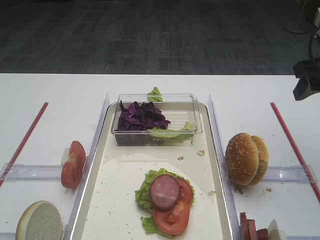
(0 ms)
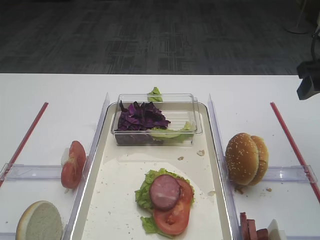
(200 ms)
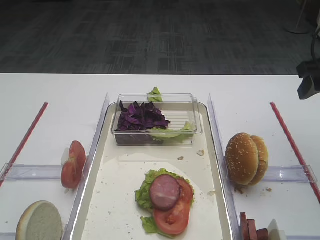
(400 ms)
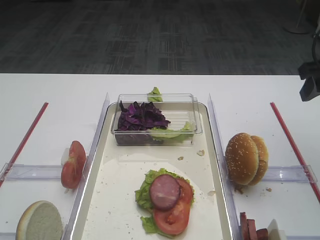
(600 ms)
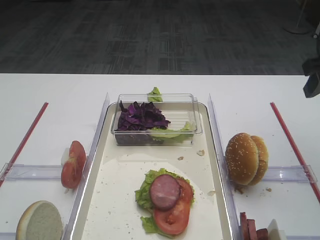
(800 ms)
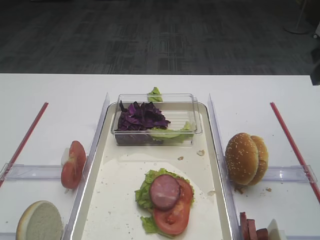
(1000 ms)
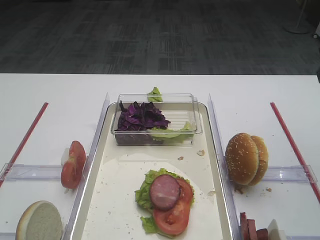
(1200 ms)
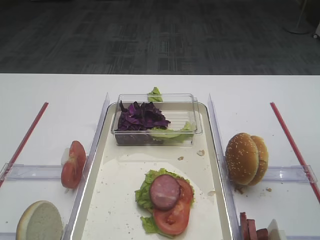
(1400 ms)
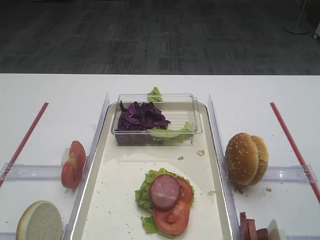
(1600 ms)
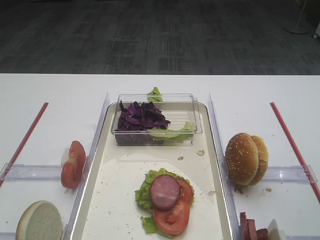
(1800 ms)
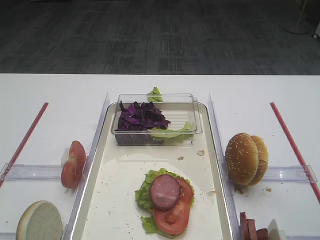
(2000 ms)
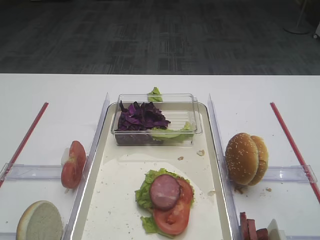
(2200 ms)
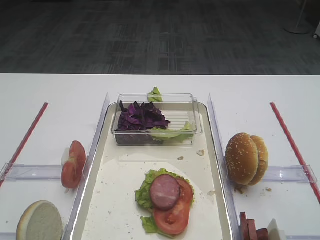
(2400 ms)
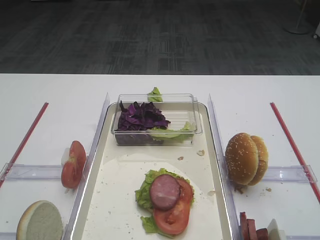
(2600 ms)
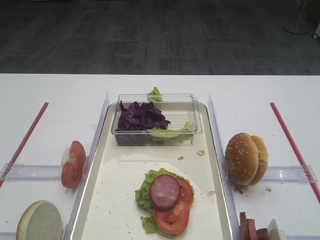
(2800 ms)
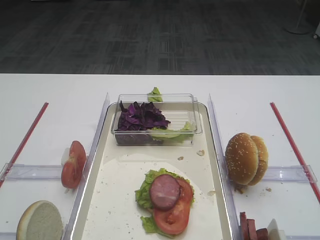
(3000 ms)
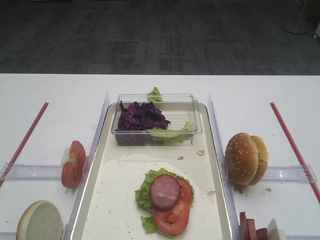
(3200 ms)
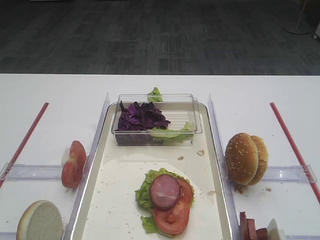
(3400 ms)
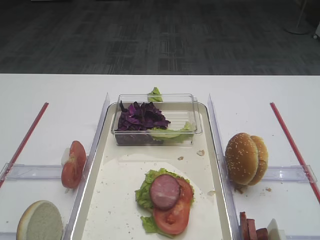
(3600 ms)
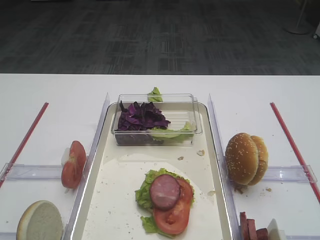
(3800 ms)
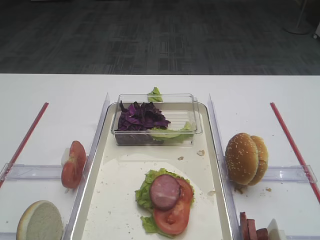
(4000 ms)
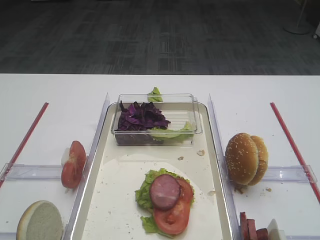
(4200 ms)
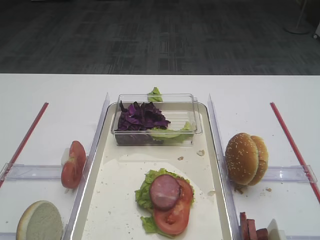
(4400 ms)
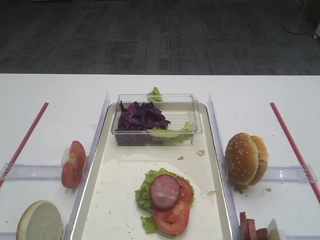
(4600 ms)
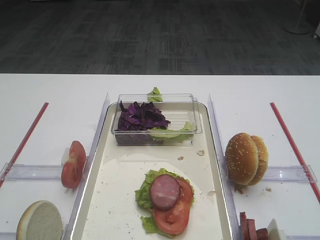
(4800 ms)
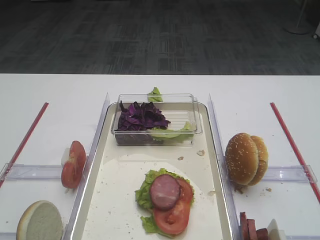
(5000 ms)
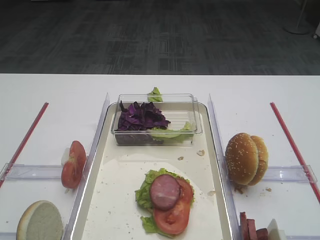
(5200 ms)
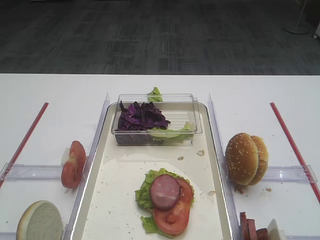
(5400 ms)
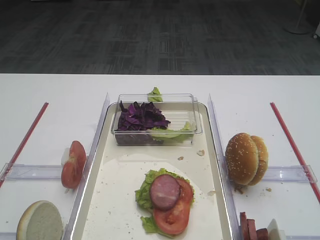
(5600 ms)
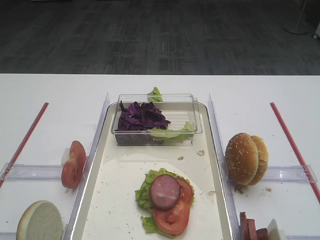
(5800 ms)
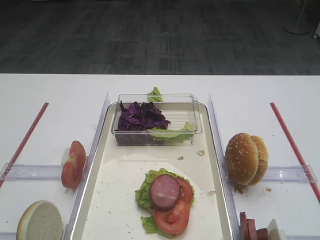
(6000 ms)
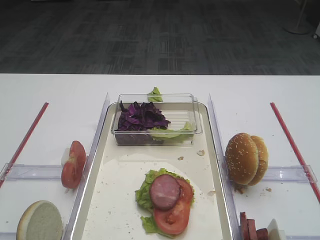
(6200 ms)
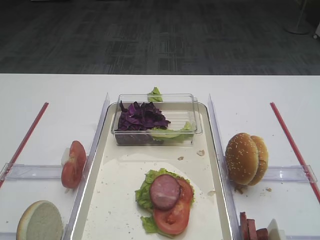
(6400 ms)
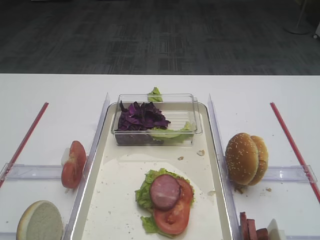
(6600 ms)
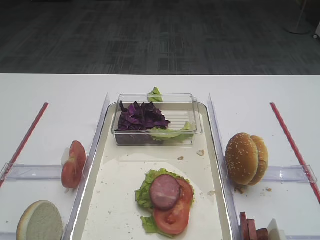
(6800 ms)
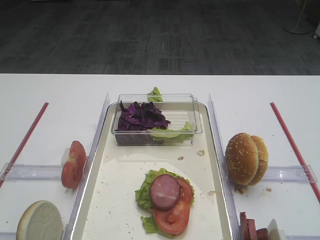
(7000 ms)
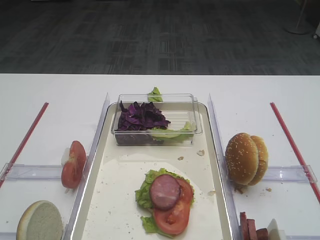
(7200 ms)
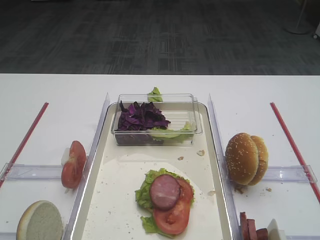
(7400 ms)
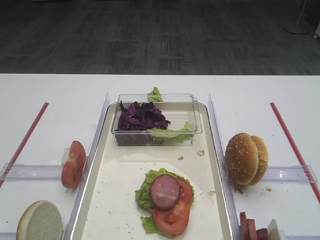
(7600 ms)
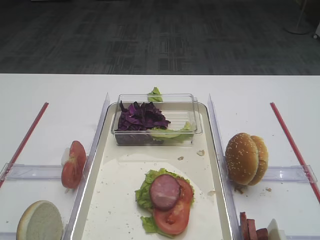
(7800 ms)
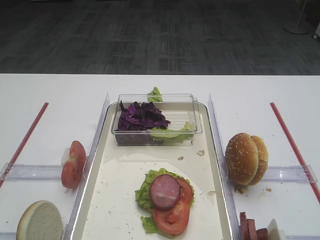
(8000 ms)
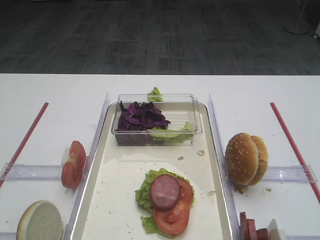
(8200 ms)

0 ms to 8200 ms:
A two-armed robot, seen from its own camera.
0 ms to 1600 ms: The right gripper shifts about 10 cm backward.
3200 ms to 8200 ms: Neither gripper changes place.

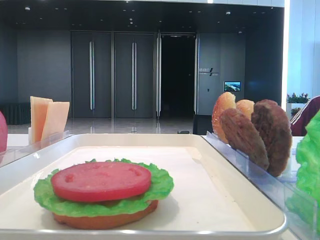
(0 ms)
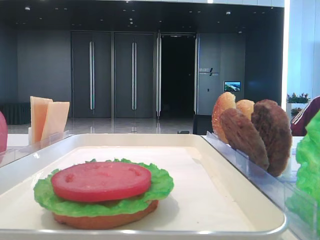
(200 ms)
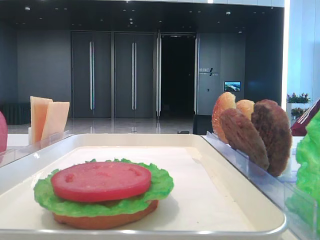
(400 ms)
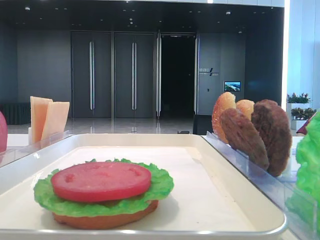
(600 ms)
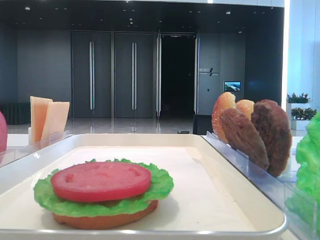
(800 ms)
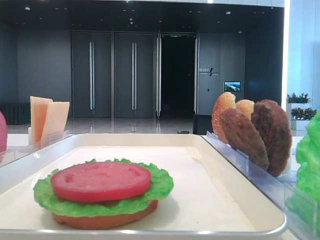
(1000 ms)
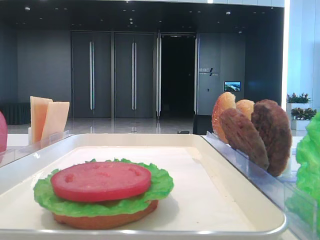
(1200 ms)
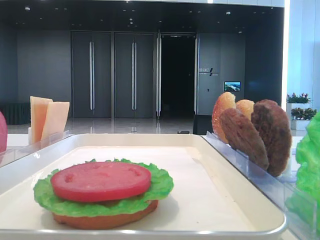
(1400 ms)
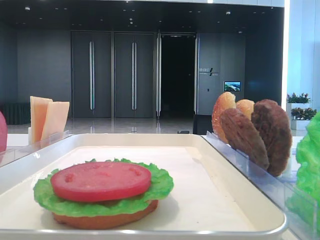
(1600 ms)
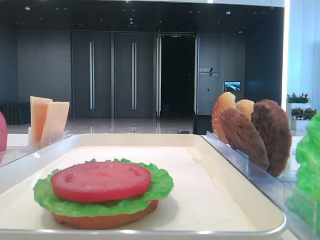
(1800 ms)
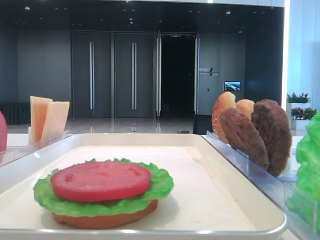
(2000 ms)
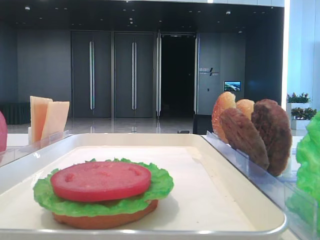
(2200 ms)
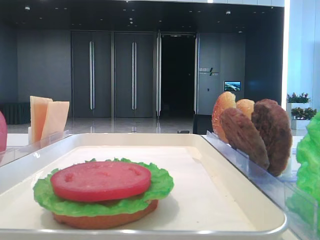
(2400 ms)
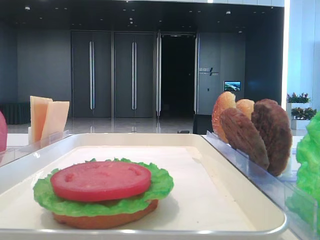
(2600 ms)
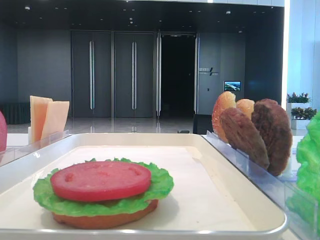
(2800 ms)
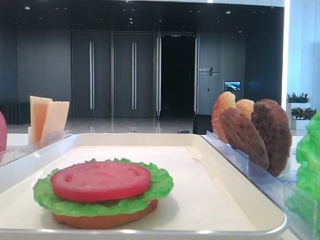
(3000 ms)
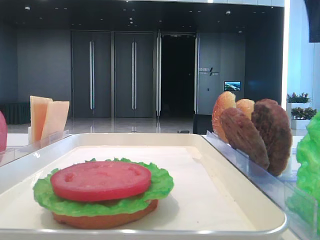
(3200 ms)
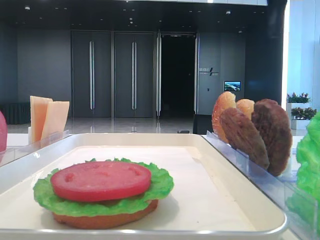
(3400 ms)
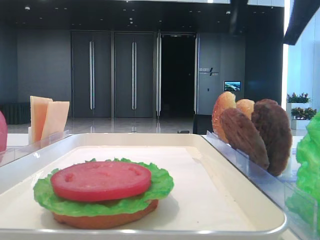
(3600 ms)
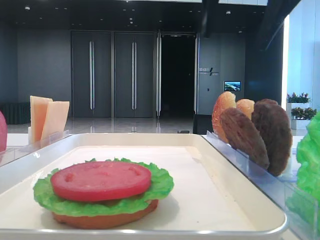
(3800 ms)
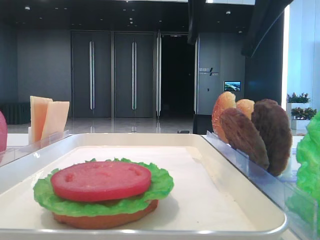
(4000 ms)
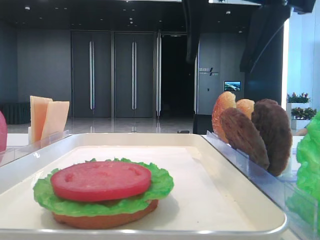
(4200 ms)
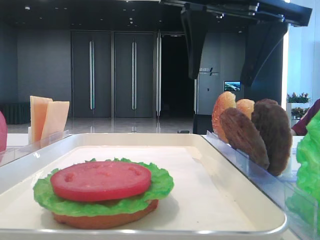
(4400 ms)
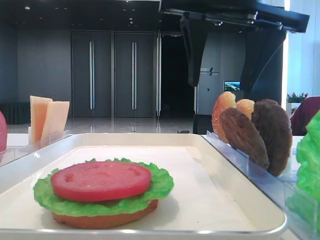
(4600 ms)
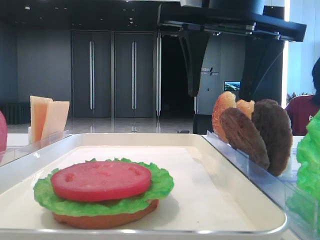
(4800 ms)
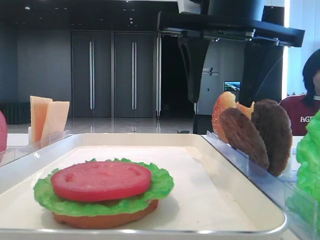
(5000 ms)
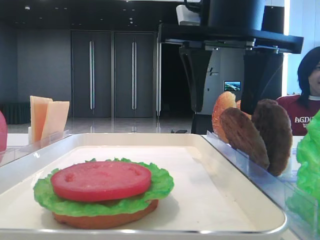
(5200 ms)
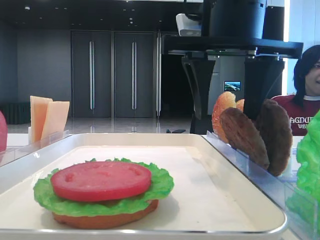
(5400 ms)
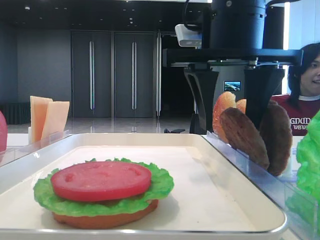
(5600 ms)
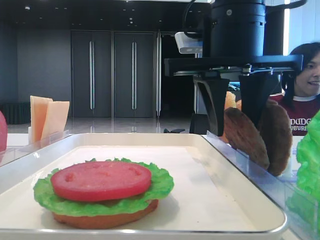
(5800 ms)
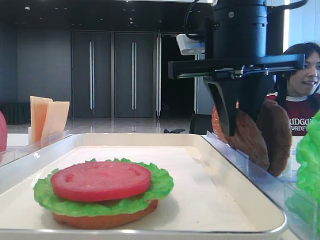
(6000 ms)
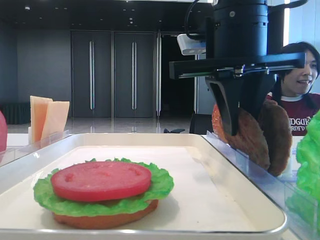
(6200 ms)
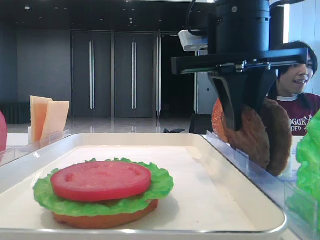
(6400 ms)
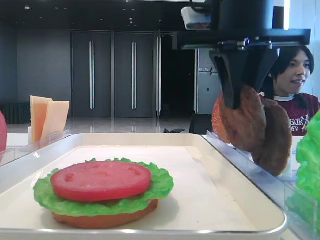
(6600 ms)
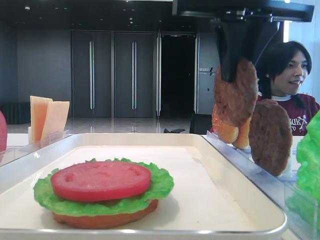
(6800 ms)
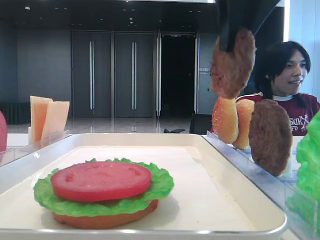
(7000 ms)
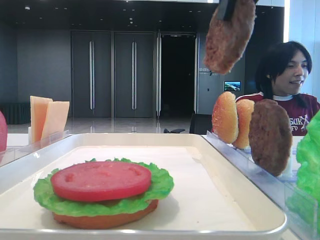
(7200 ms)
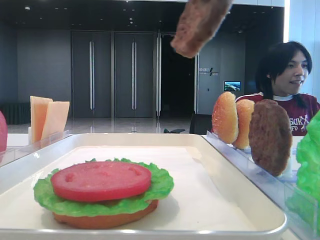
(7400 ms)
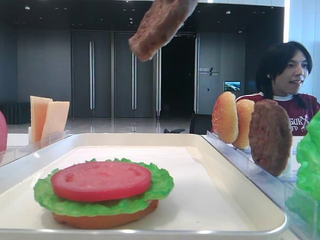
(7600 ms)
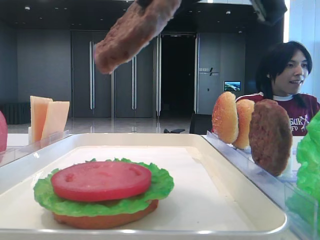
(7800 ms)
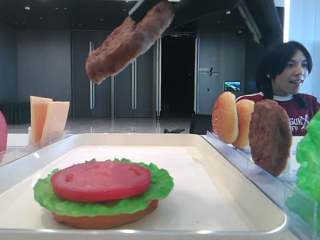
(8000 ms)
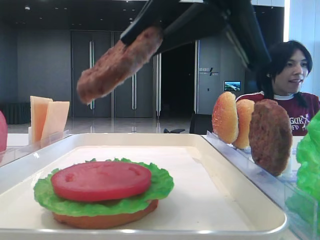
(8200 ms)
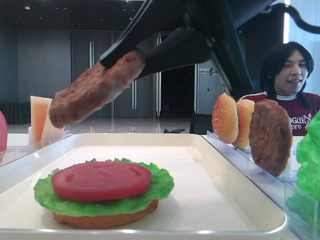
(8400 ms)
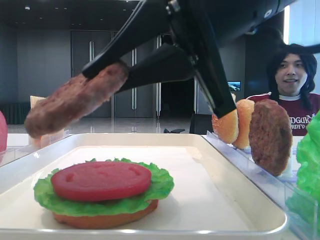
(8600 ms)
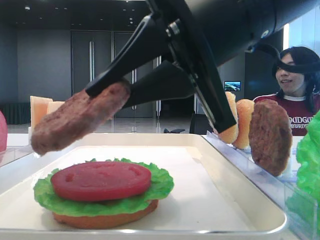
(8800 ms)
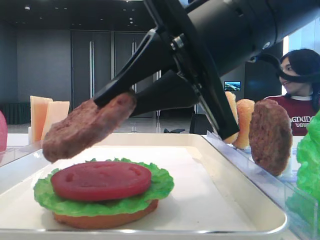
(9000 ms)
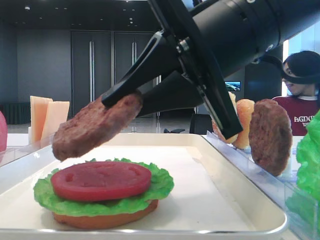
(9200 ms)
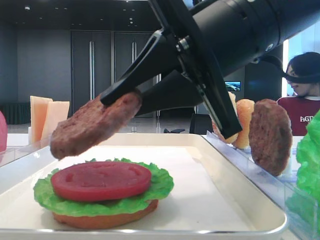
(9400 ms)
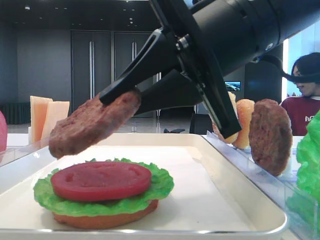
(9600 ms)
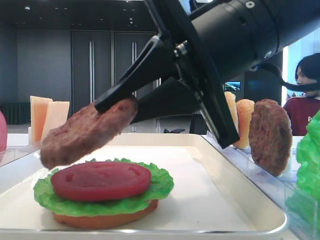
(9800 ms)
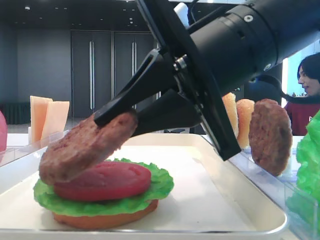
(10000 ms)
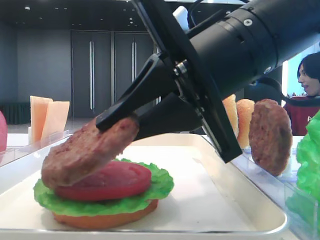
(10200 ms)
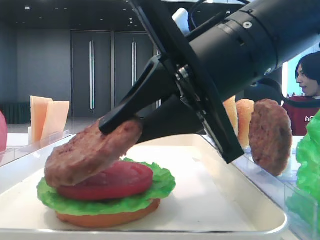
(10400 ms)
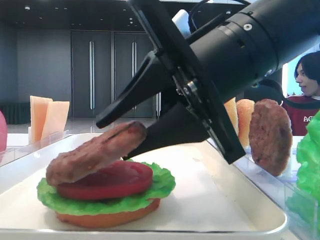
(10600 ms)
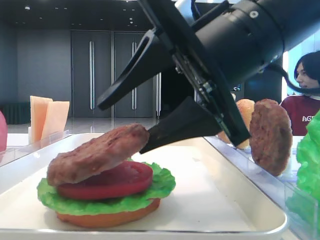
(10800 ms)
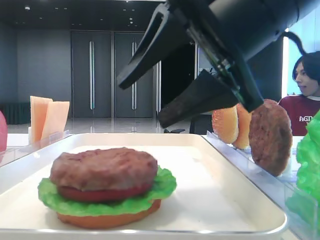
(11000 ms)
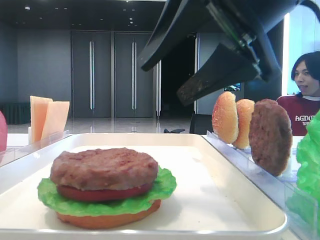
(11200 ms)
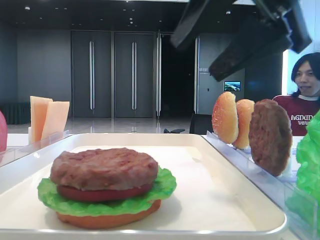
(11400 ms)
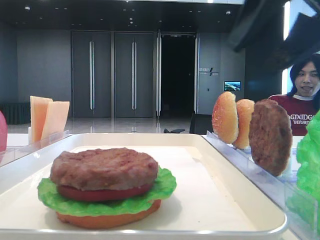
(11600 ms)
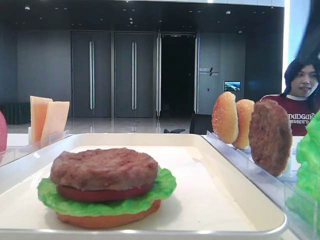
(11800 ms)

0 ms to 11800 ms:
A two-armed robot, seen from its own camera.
Step, 0 ms to 6200 ms: Grab the patty with the right hand.
Step, 6400 ms to 10800 ms: Place the patty on the tomato slice with the right hand.
3000 ms to 4400 ms: The right gripper travels to the left by some 20 cm.
4400 ms to 6000 ms: The right gripper heads downward, covering about 5 cm, and closes up.
6000 ms to 7400 ms: The right gripper travels upward and backward by some 15 cm.
7400 ms to 8800 ms: The right gripper moves downward, approximately 15 cm.
10400 ms to 11800 ms: The right gripper shifts approximately 20 cm to the right and upward, and opens up.

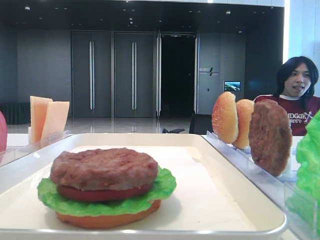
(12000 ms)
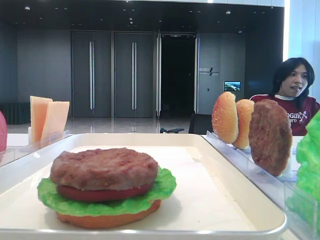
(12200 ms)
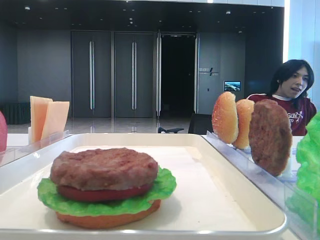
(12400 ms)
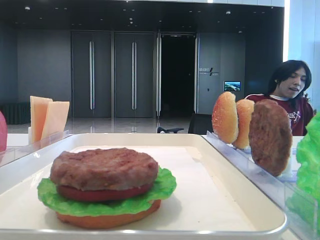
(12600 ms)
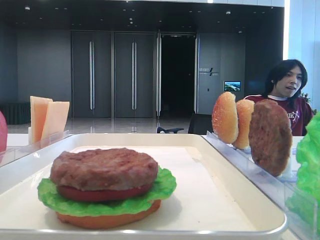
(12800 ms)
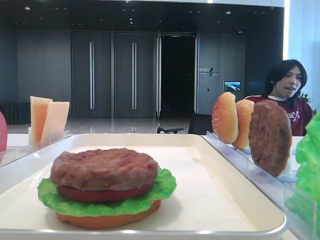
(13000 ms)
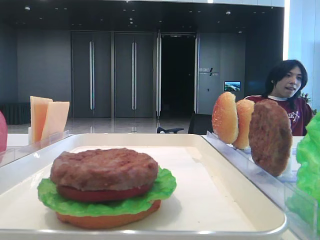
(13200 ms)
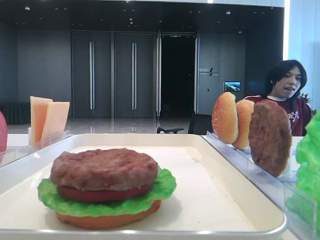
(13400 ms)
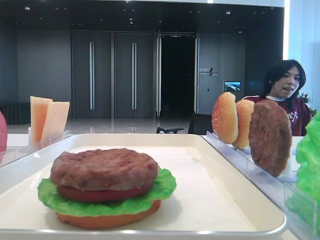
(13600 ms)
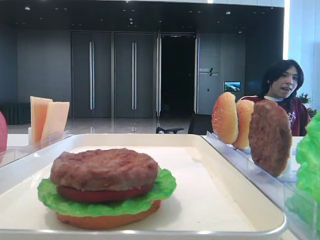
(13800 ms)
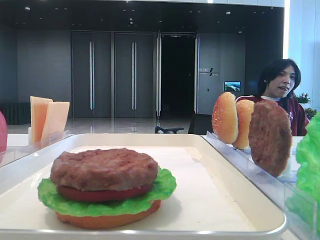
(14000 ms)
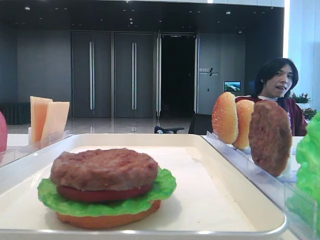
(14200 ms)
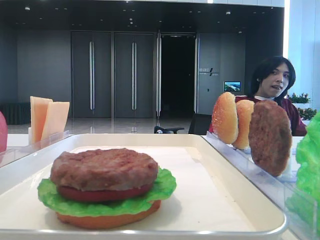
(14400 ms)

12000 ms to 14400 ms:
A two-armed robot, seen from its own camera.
12000 ms to 13200 ms: The right gripper travels backward by approximately 15 cm.
13200 ms to 14400 ms: The right gripper moves backward, roughly 5 cm.
